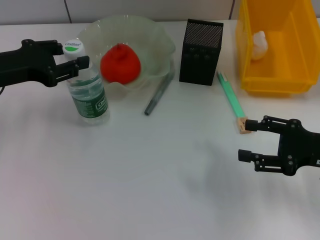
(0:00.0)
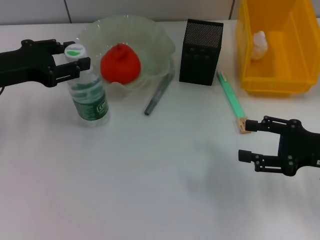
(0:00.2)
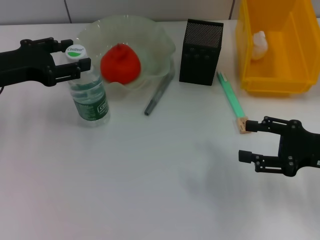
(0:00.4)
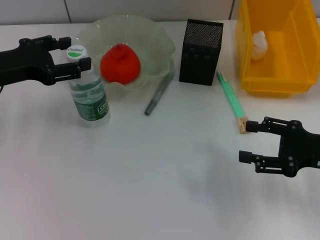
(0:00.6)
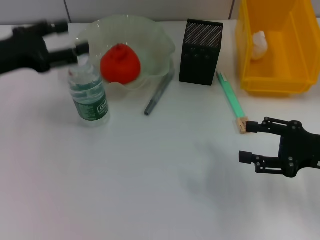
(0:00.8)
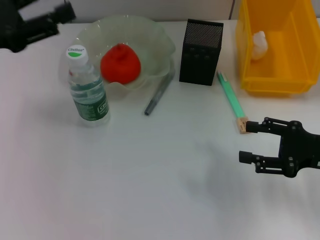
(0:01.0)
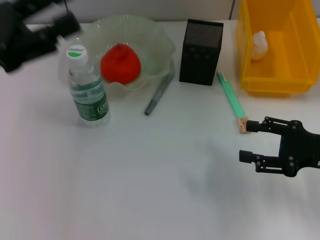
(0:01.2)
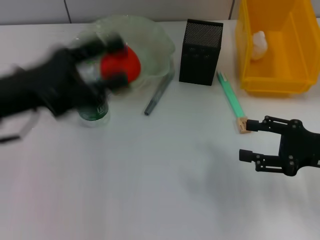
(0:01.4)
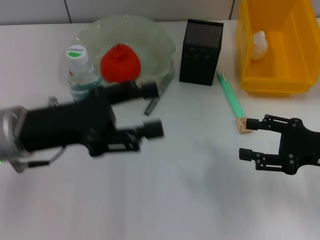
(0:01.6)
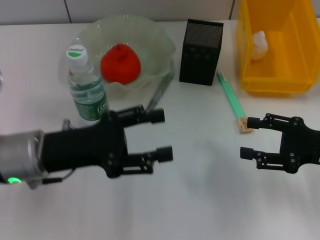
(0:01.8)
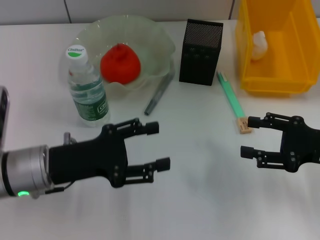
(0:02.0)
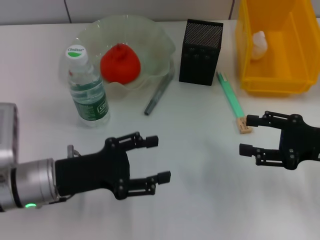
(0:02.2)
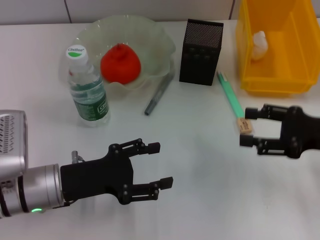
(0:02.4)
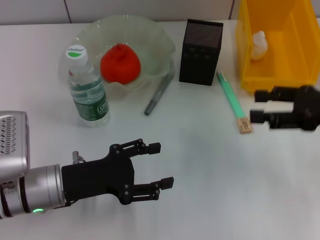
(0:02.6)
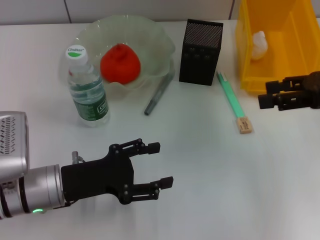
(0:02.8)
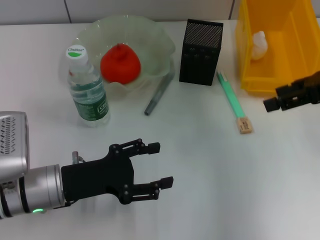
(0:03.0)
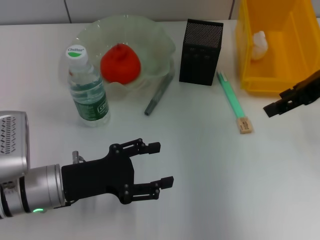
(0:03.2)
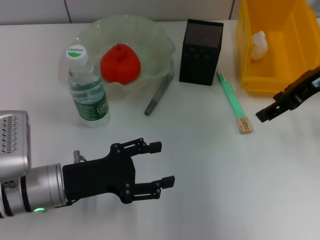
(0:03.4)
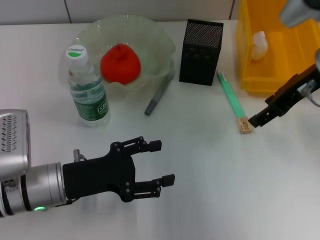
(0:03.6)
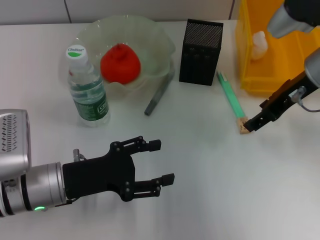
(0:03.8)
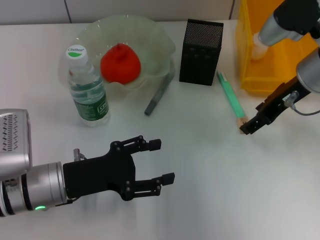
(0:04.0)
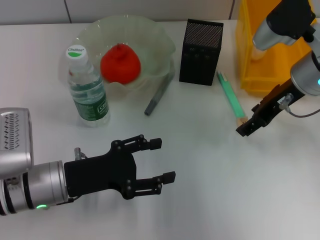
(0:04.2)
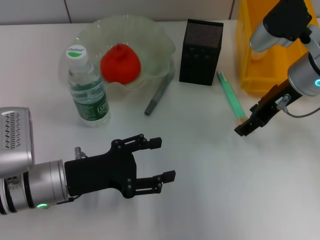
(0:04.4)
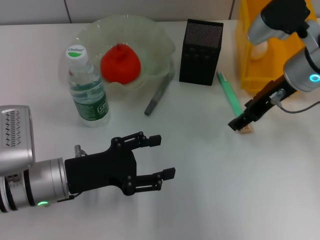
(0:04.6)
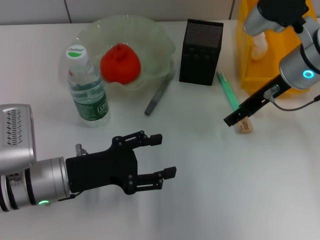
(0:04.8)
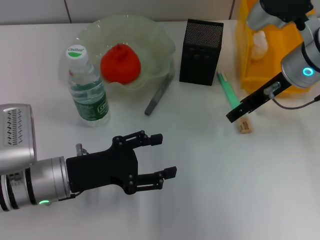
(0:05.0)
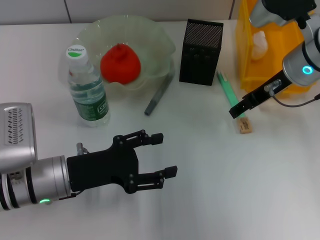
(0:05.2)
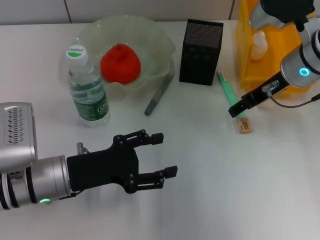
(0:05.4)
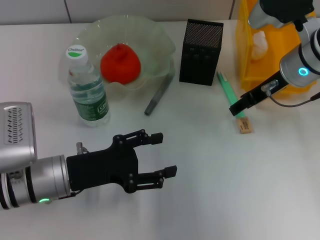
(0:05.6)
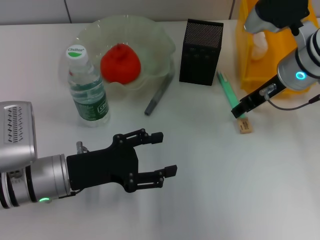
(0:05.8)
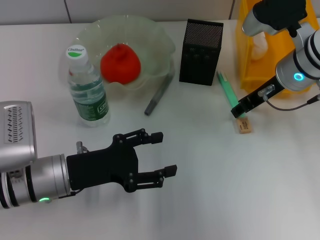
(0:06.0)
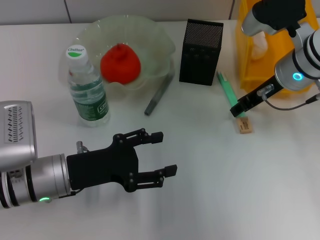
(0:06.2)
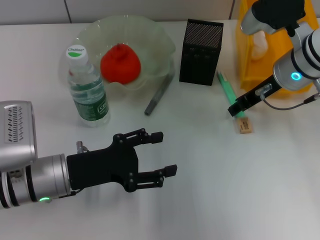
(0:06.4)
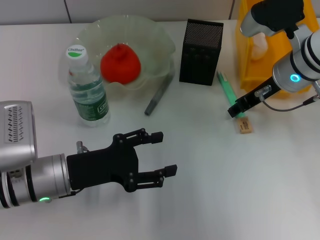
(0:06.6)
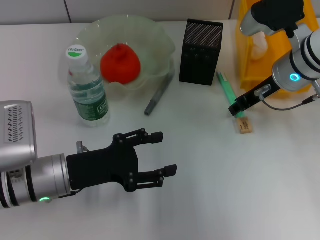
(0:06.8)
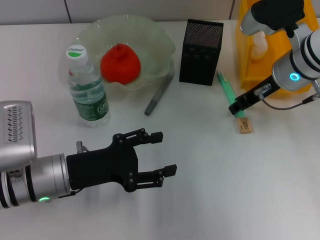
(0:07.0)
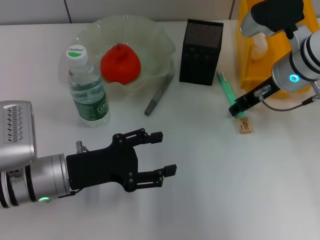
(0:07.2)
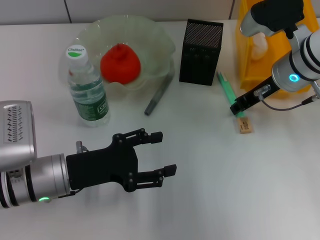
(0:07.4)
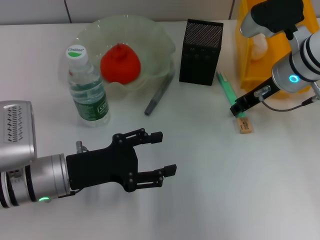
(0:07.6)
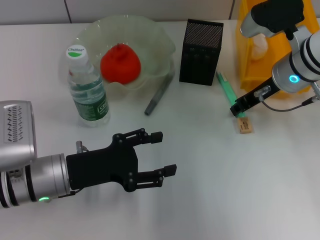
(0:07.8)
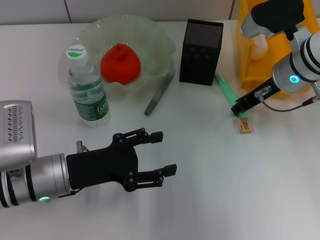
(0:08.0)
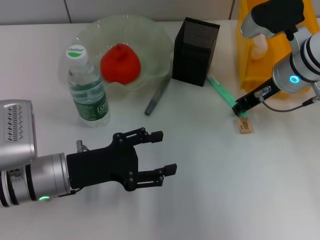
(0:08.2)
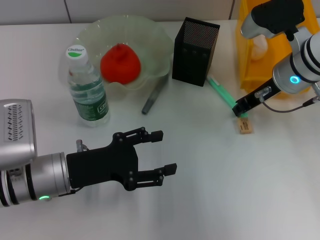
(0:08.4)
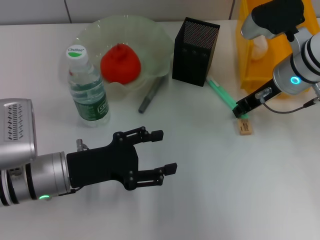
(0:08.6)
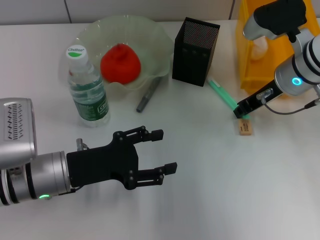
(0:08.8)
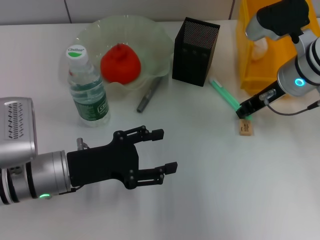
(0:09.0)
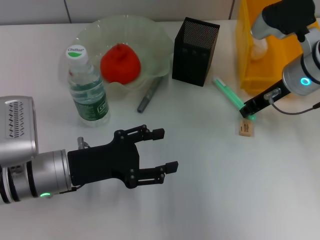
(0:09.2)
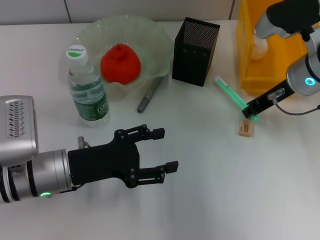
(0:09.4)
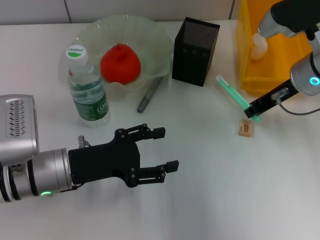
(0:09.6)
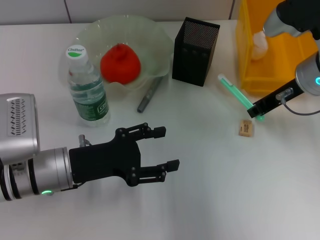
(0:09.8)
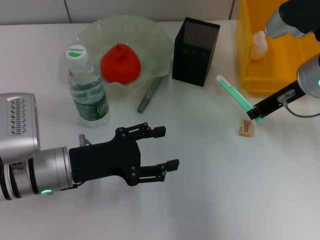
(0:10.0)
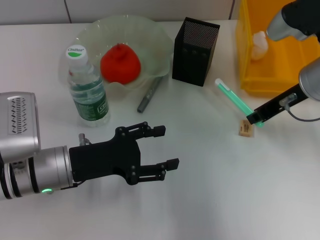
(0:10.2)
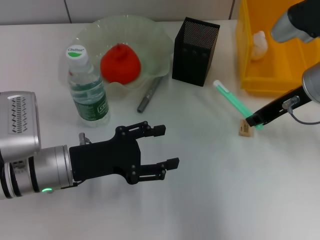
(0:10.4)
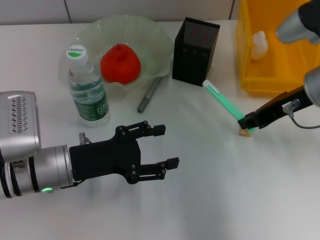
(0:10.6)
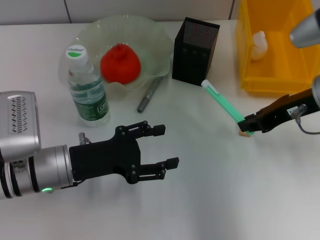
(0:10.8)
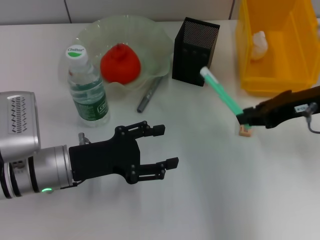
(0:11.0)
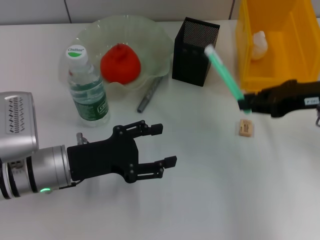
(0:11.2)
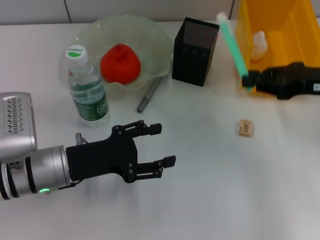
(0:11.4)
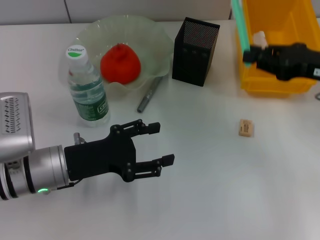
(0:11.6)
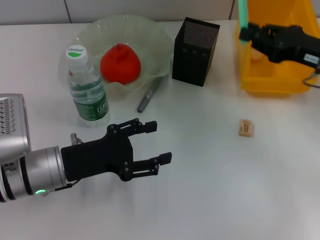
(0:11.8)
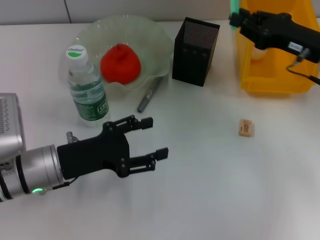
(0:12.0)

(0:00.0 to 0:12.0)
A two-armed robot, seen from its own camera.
Step, 0:00.8 - 0:08.8: Grab the blue utility knife with the right hand.
0:00.0 - 0:01.6: The left gripper heads to the right and backward, covering roughly 10 cm, and opens its fingers.
0:01.6 - 0:03.0: The left gripper is displaced downward by about 10 cm; the right gripper shifts about 15 cm upward and forward.
0:03.0 - 0:04.4: The right gripper moves to the left and downward, roughly 10 cm.
0:04.4 - 0:06.0: The grippers move only a little.
0:06.0 - 0:07.6: The right gripper closes its fingers.
0:07.6 - 0:09.0: Neither gripper changes place.
0:09.0 - 0:10.4: The right gripper changes place by approximately 5 cm.
0:10.4 - 0:12.0: The right gripper changes place by about 5 cm.

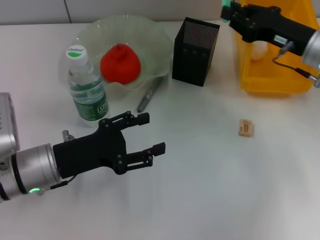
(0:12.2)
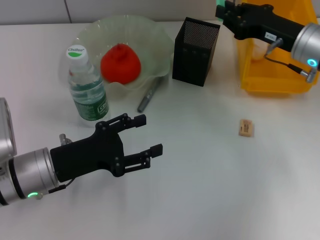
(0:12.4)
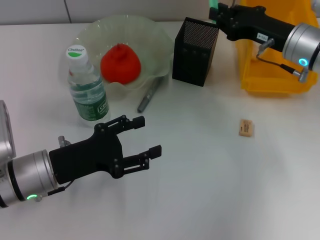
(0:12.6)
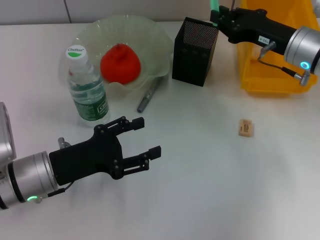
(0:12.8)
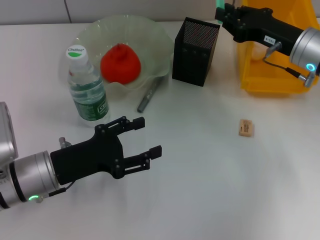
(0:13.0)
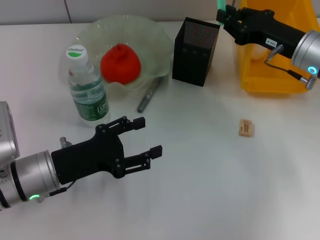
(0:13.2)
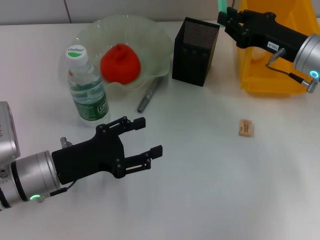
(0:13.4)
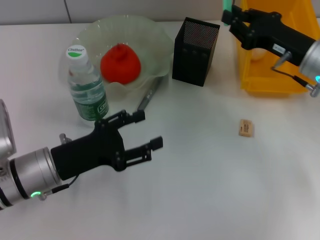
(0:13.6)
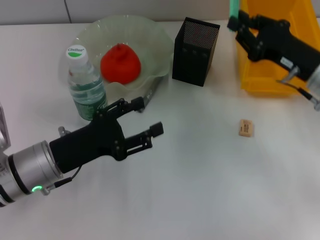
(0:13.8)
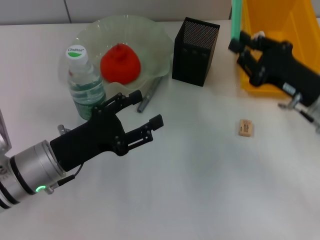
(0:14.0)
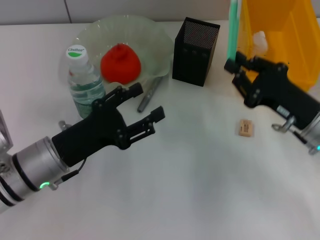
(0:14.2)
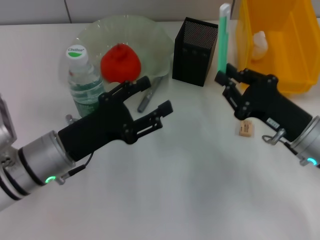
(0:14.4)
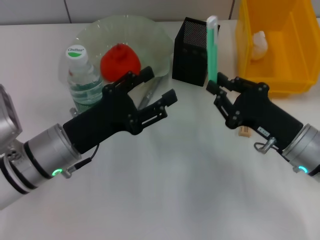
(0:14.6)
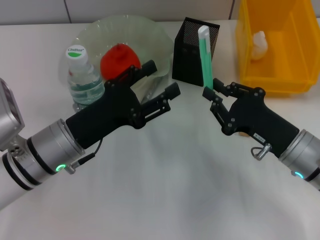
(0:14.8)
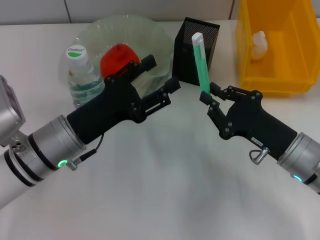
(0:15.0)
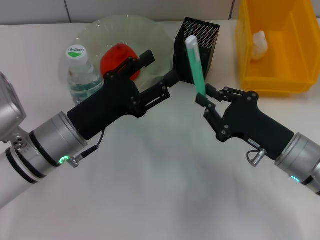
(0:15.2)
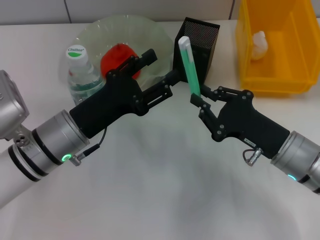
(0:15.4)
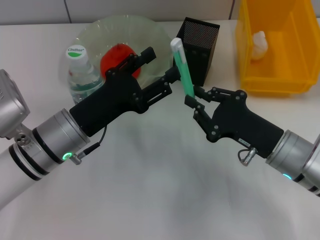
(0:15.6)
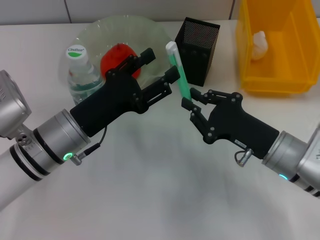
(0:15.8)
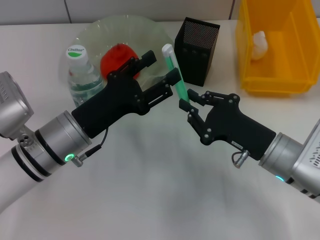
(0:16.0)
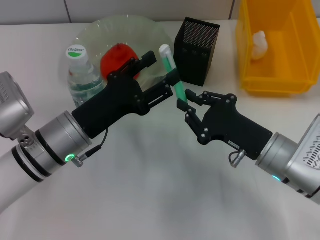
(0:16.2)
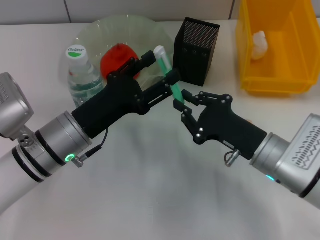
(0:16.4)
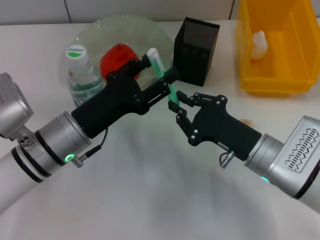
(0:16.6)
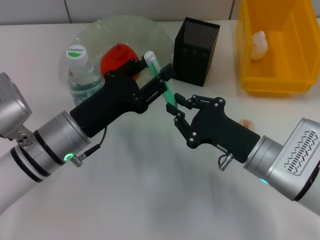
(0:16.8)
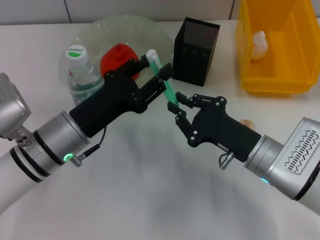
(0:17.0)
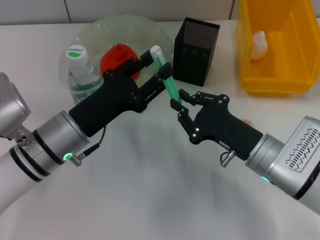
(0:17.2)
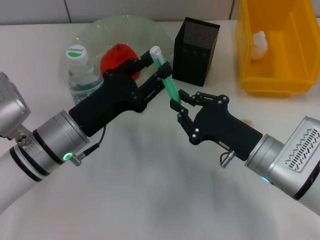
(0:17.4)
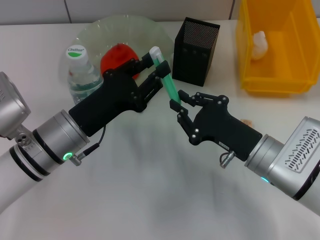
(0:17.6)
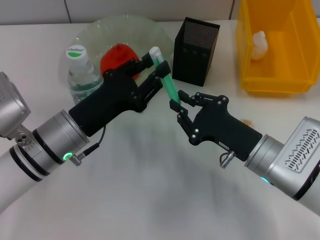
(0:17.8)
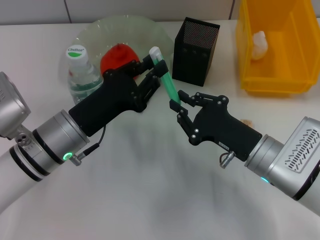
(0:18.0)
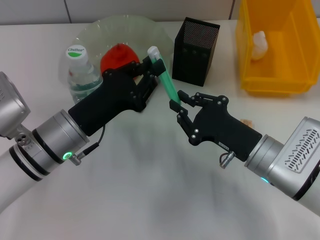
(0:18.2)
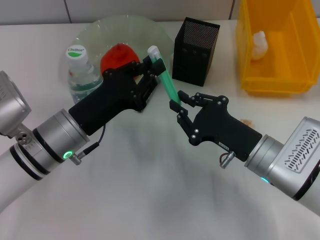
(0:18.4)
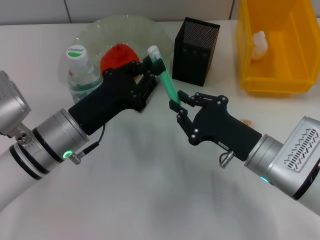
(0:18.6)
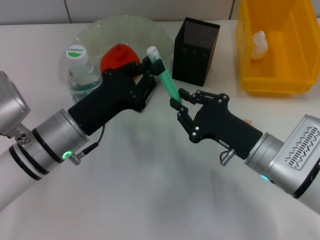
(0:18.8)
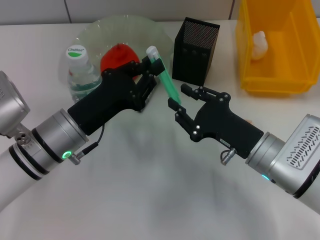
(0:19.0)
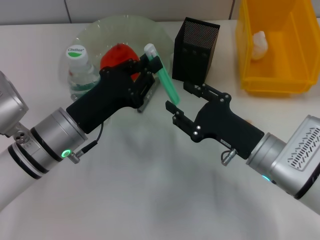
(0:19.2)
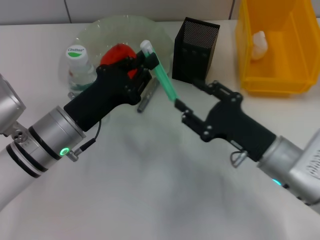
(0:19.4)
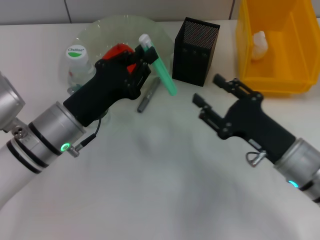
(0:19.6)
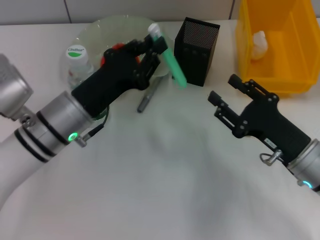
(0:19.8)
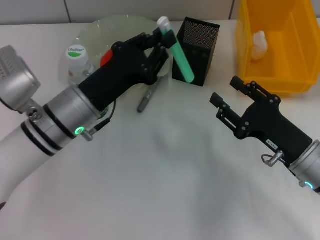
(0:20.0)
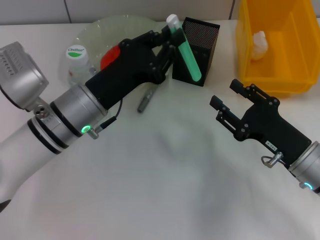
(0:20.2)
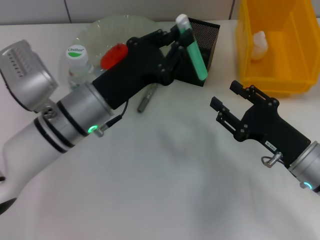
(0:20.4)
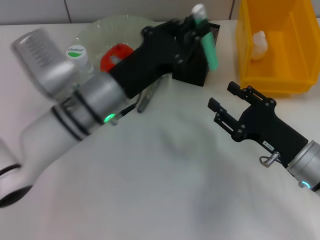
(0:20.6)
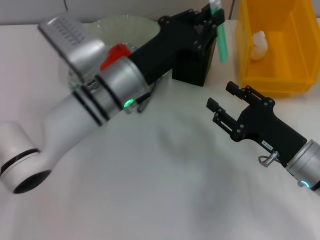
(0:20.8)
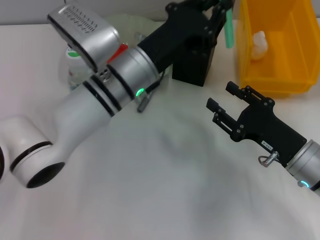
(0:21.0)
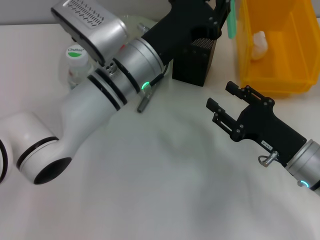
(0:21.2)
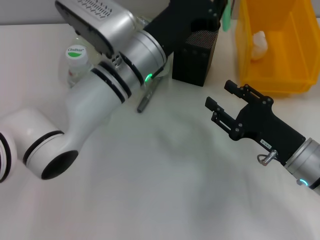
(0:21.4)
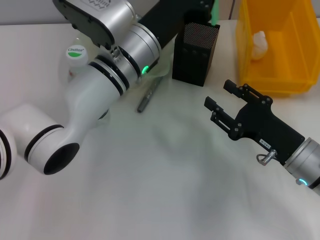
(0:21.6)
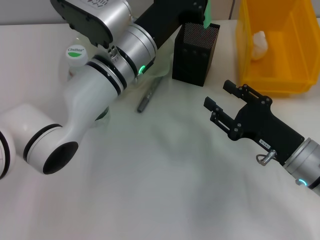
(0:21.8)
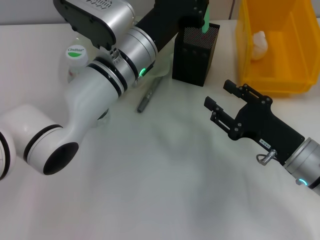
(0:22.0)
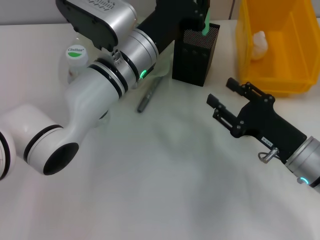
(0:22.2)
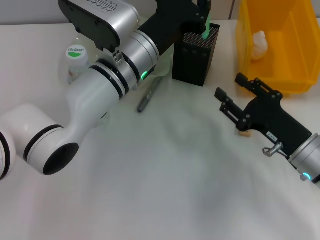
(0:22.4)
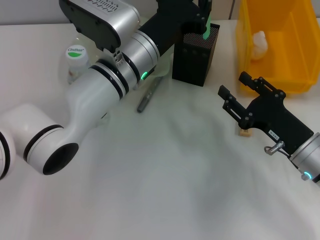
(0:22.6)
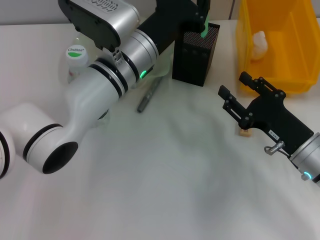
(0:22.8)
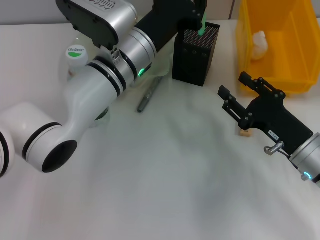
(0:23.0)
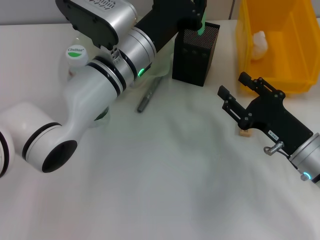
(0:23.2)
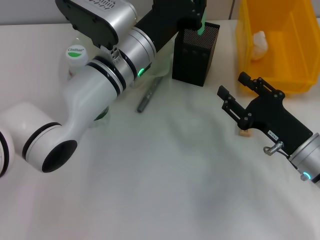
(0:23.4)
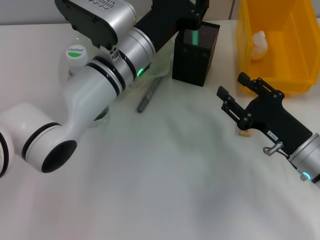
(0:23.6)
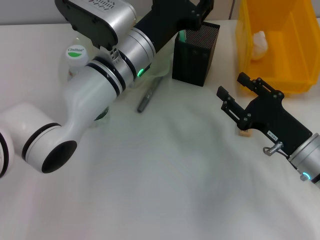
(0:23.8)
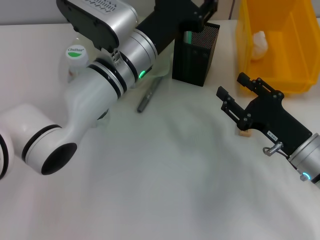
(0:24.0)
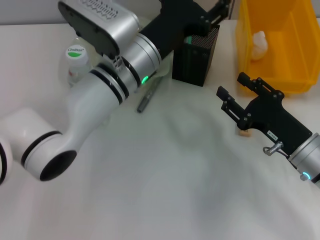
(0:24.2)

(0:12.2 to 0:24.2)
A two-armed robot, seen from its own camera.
Step, 0:12.2 - 0:19.0: Pass the blue utility knife from the right hand to the left hand.
0:12.2 - 0:13.8: The grippers make only small movements.
0:13.8 - 0:15.2: The right gripper travels backward and downward by some 10 cm.
0:15.2 - 0:16.6: The grippers move only a little.
0:16.6 - 0:18.2: The left gripper closes.
0:18.2 - 0:19.8: The right gripper shifts some 5 cm to the right, and opens.
0:19.8 - 0:21.2: The left gripper goes roughly 10 cm to the right and forward.
0:21.2 - 0:22.6: There are only small adjustments of the grippers.
0:22.6 - 0:24.2: The left gripper opens its fingers.
